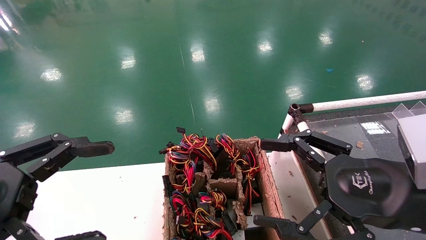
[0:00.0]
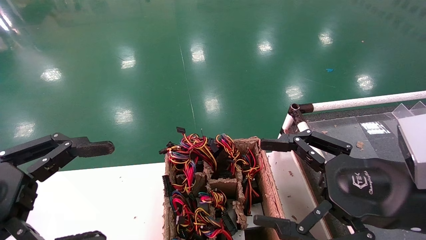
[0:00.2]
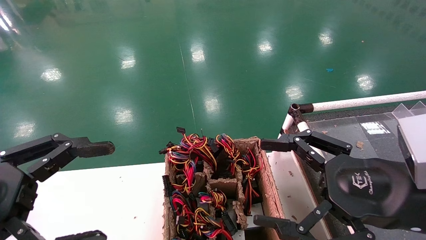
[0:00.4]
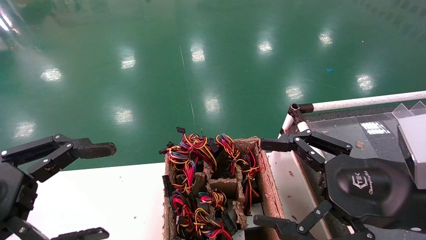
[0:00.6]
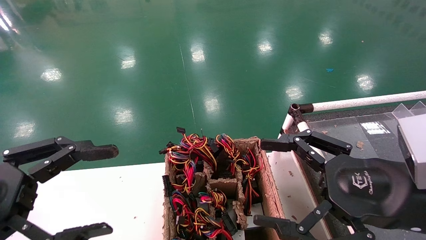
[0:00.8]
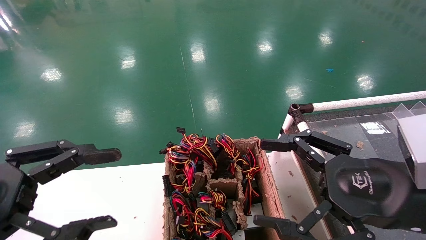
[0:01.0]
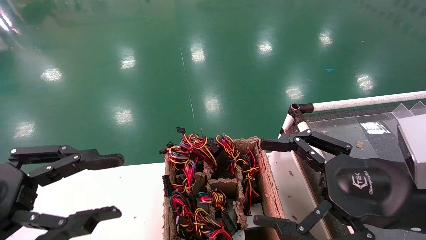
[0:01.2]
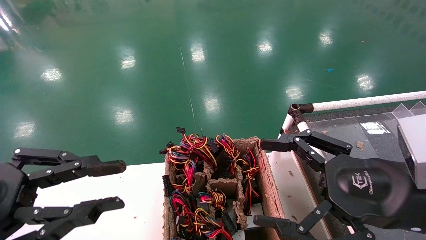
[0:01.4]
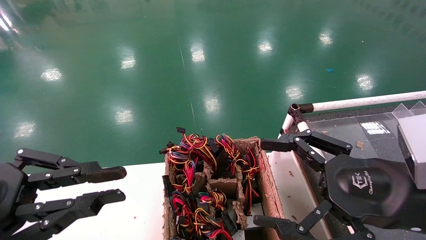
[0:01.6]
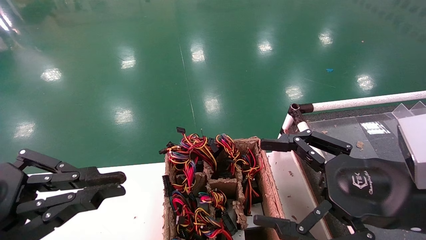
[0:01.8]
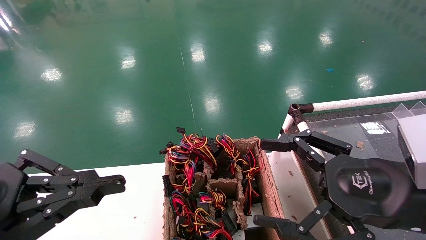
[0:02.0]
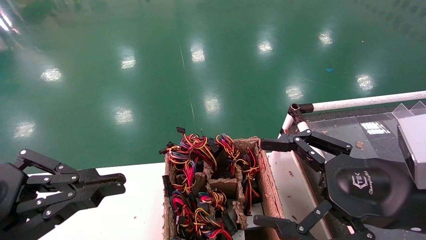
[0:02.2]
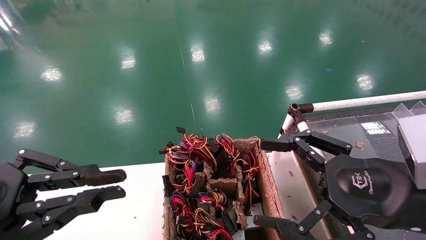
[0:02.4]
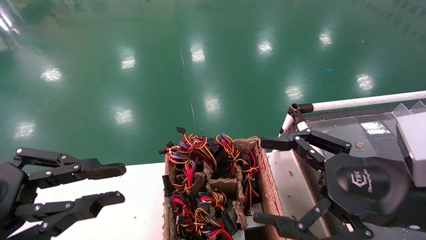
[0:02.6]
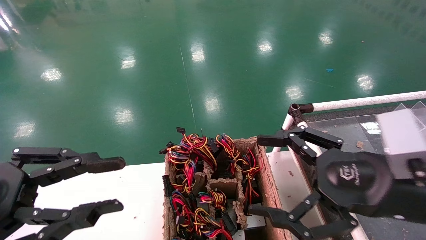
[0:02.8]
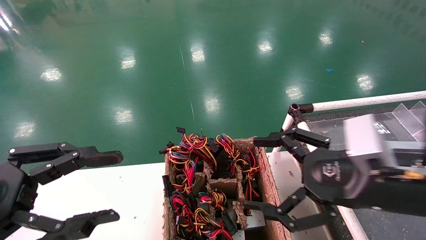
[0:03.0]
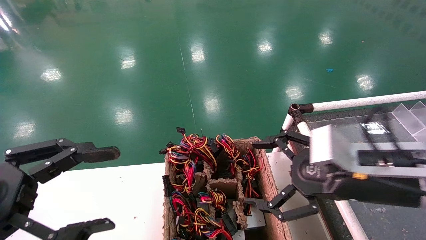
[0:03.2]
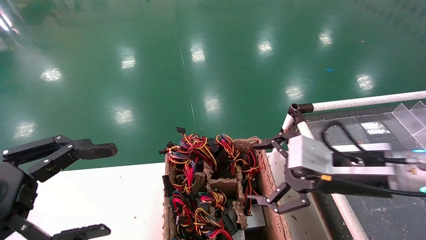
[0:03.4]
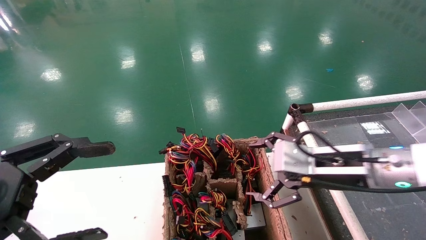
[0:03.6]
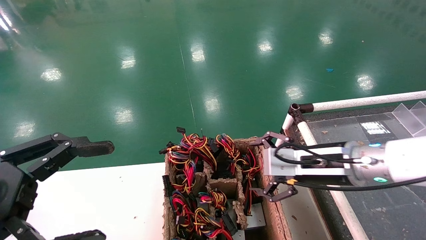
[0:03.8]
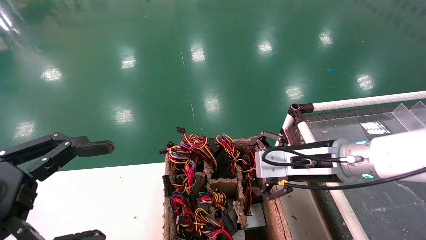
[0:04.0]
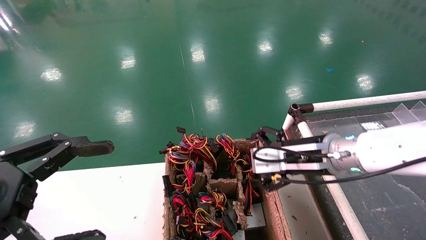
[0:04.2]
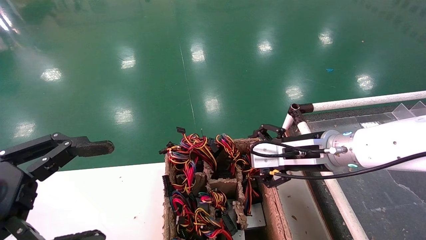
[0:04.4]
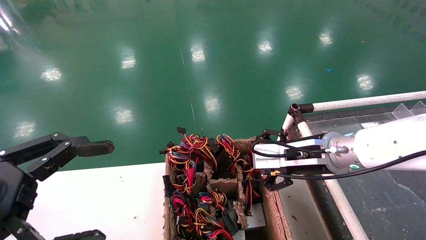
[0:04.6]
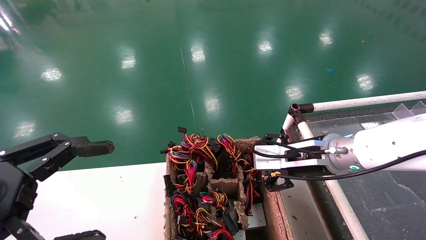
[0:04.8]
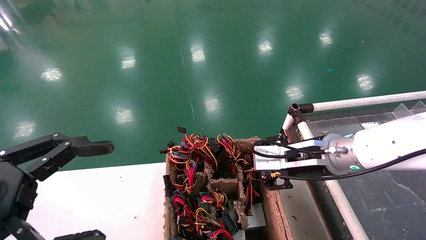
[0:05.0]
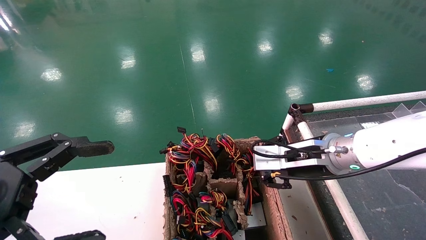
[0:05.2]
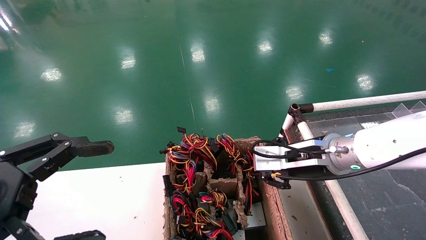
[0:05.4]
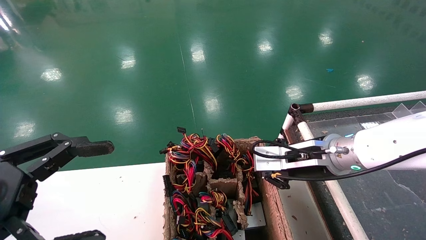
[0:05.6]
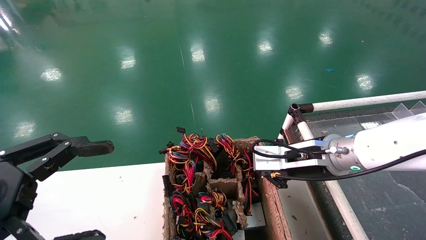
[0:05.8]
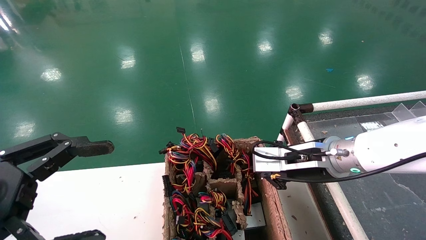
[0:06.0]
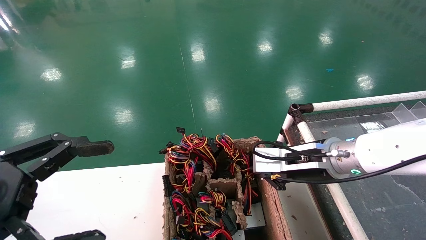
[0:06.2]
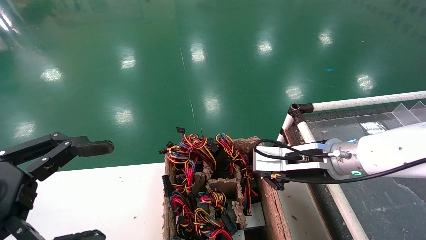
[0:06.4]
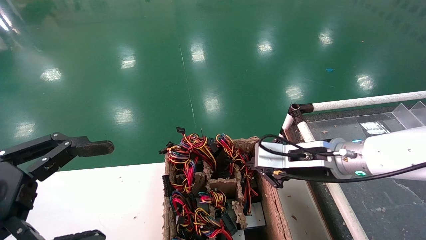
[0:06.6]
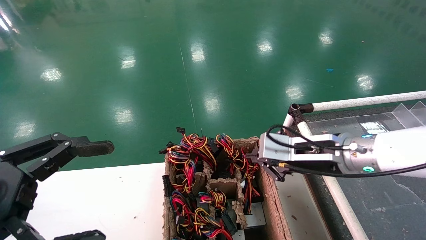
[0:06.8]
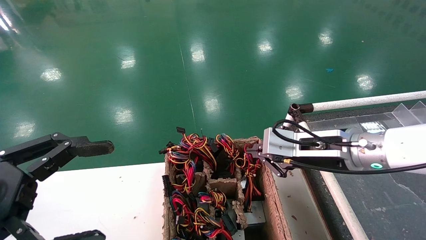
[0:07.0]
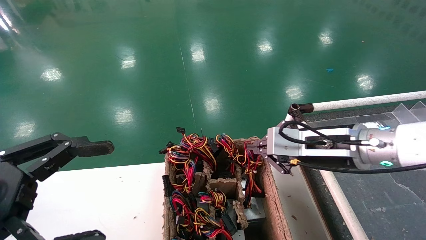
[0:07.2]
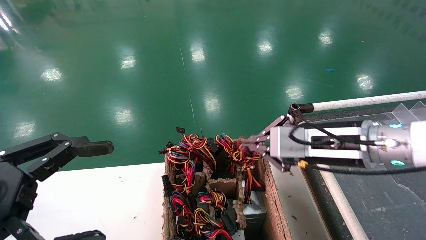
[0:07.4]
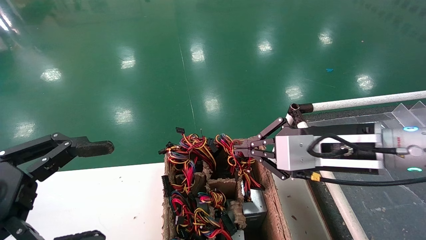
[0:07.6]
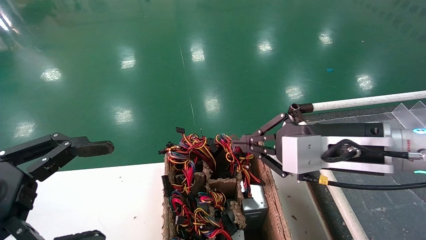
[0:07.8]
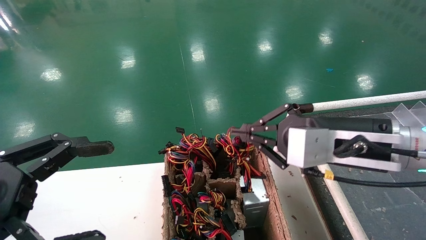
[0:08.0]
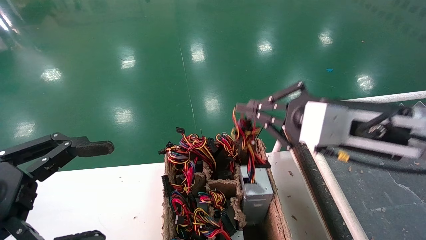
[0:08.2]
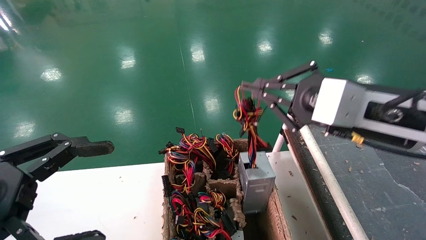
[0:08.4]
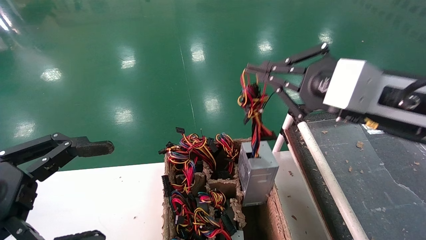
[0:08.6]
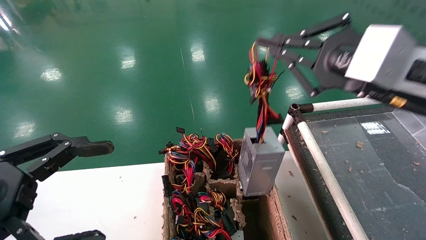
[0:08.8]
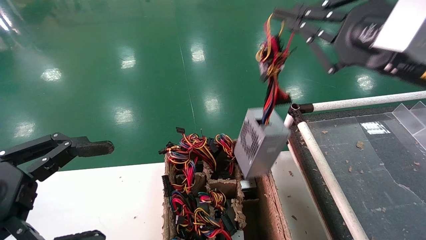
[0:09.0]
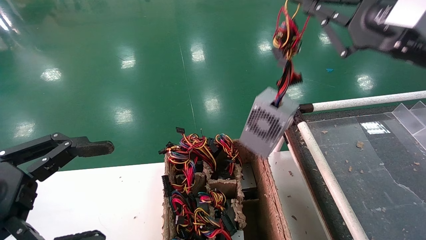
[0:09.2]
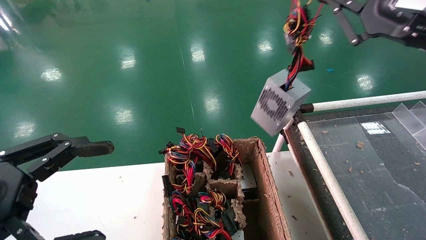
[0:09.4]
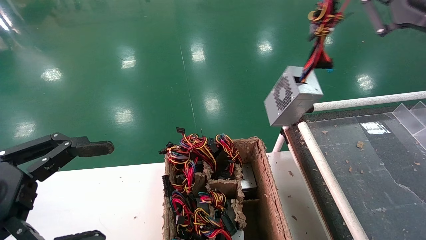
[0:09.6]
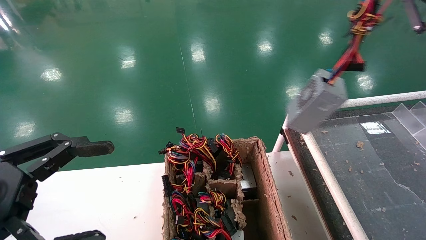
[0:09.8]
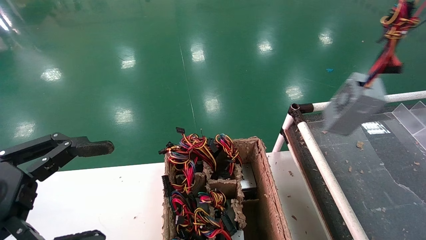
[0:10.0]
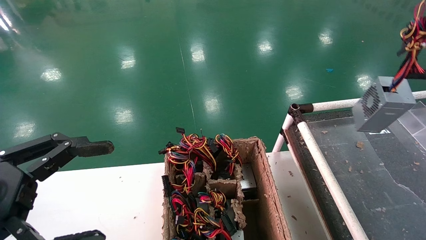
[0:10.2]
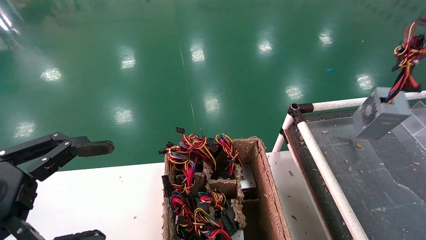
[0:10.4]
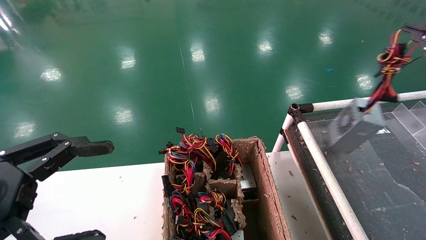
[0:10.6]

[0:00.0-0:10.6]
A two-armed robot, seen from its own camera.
Step, 0:01.4 to 0:07.2: Grab and lift the power supply from the large box.
0:00.0 to 0:01.6: The left gripper closes.
0:01.6 to 0:03.0: The grippers move only a little.
0:03.0 to 0:04.6: The right gripper shifts approximately 15 cm forward and to the left. The left gripper opens its fingers.
0:04.6 to 0:06.0: The right gripper closes.
0:06.0 to 0:07.6: The right gripper travels backward by about 5 cm.
0:07.6 to 0:09.0: The right gripper moves upward and to the right, roughly 15 cm.
0:09.0 to 0:10.6: The right gripper moves to the right, approximately 15 cm.

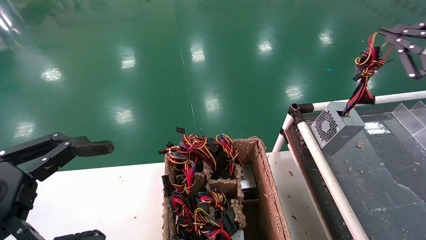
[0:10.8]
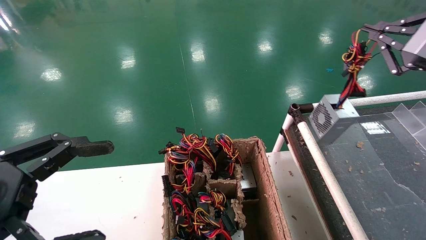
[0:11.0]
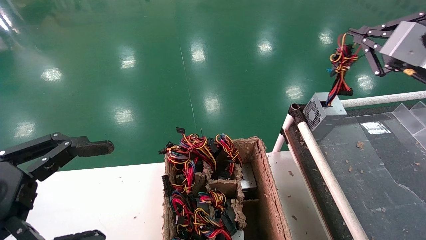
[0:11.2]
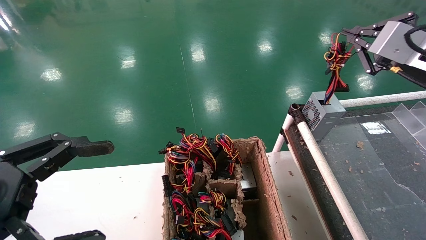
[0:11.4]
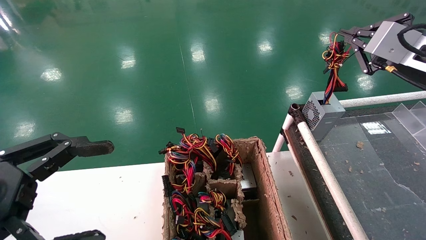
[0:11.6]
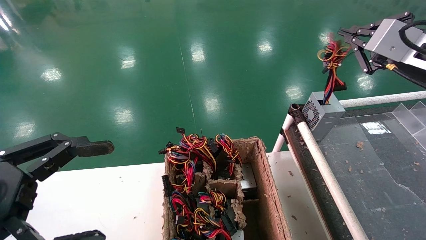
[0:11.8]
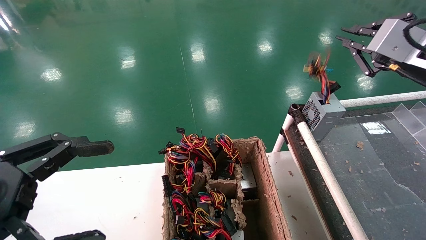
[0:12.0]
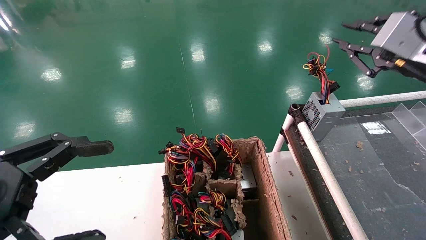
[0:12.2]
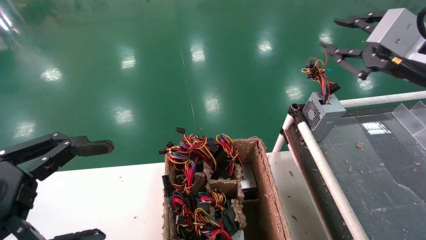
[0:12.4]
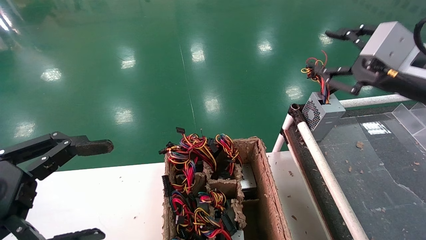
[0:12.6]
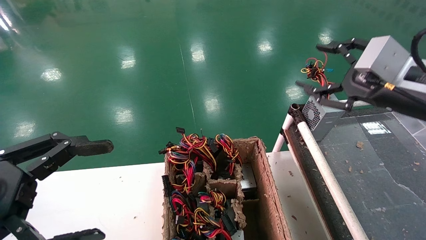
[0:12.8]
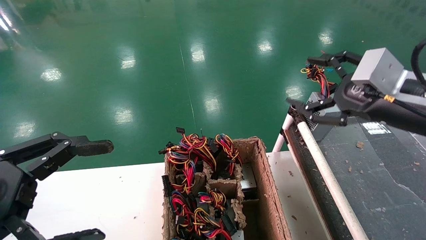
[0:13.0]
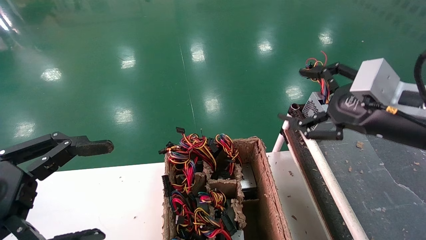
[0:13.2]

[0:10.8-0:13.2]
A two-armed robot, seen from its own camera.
0:10.8 to 0:12.0: The right gripper moves roughly 5 cm.
0:12.0 to 0:13.2: The right gripper is displaced downward by about 5 cm, and opens up.
